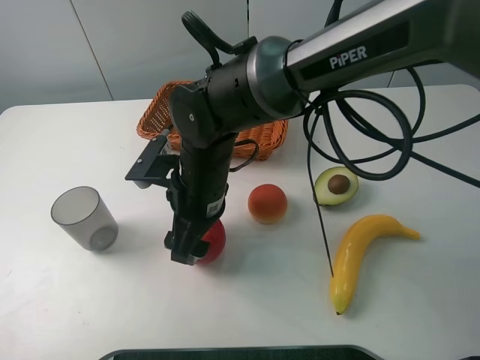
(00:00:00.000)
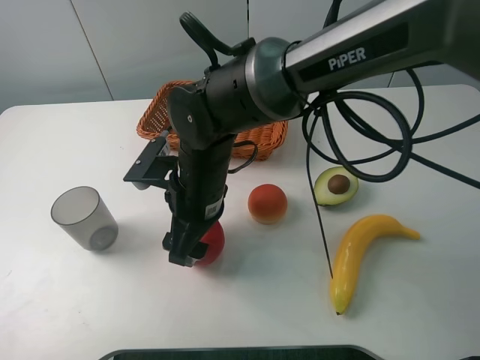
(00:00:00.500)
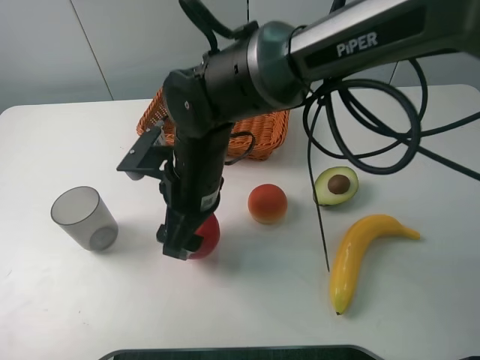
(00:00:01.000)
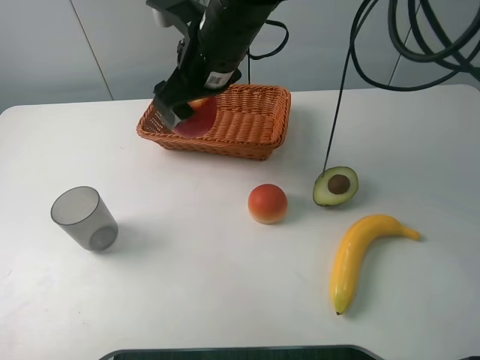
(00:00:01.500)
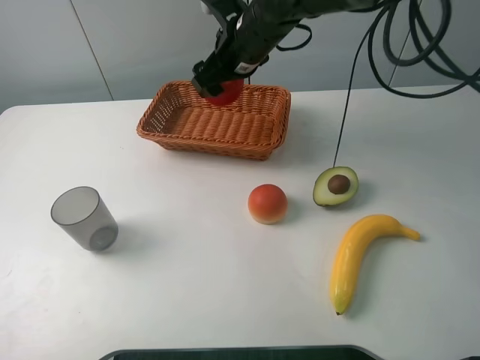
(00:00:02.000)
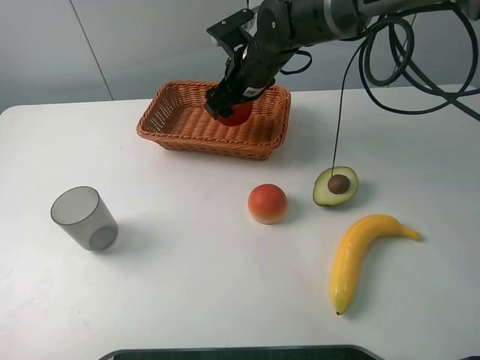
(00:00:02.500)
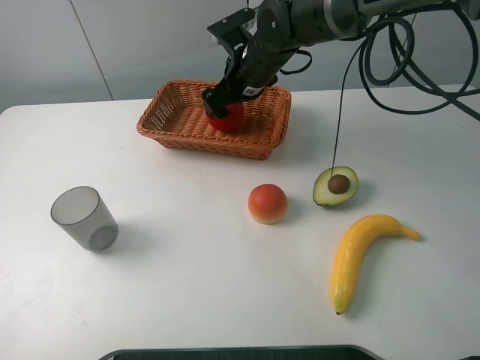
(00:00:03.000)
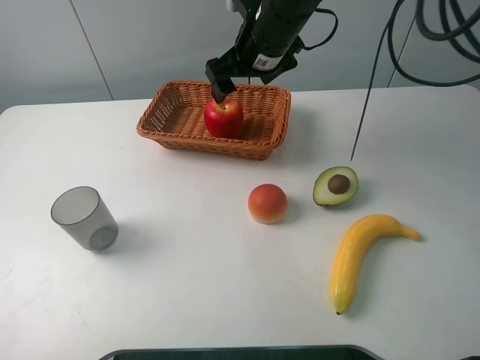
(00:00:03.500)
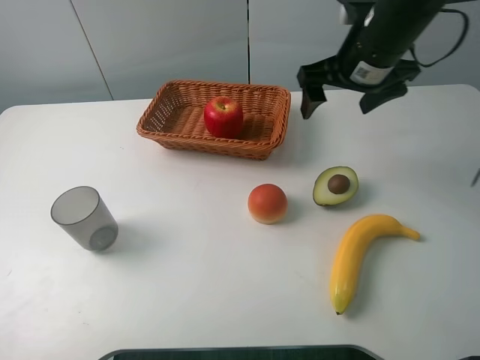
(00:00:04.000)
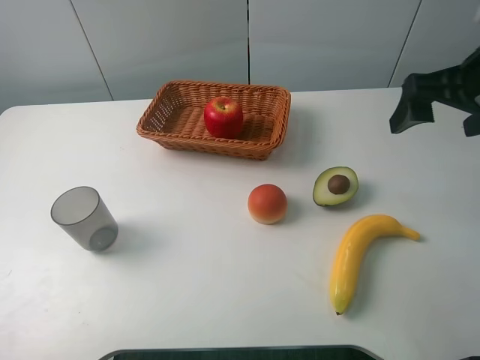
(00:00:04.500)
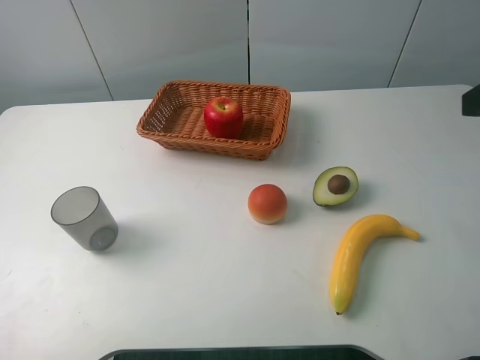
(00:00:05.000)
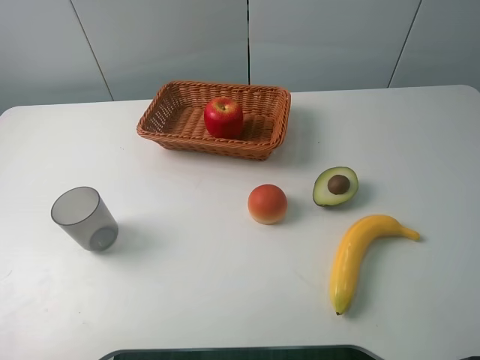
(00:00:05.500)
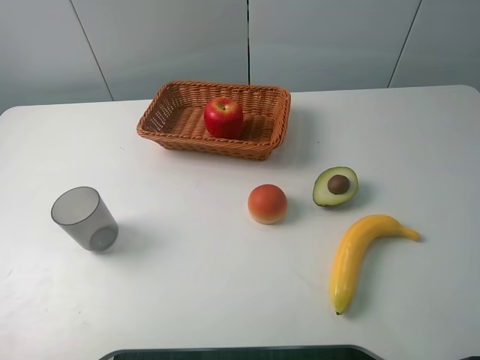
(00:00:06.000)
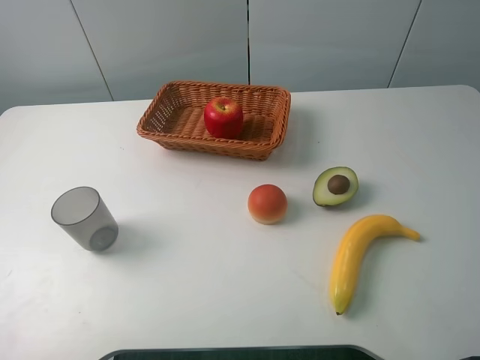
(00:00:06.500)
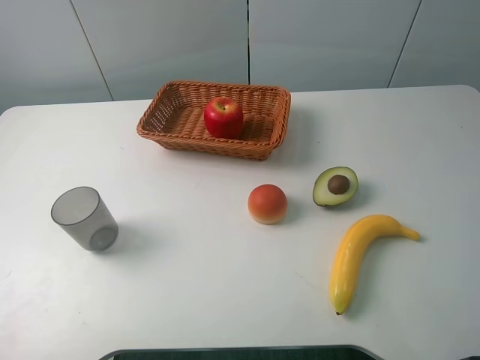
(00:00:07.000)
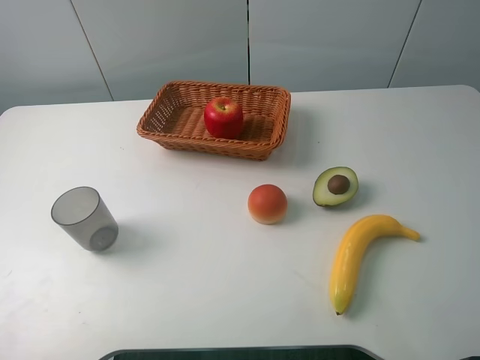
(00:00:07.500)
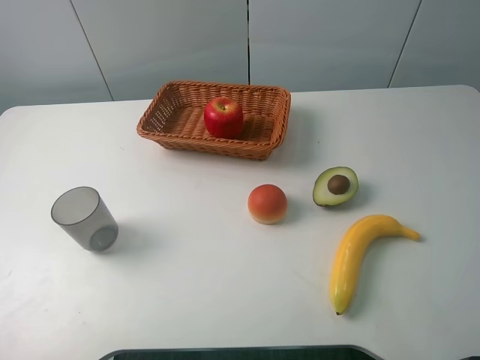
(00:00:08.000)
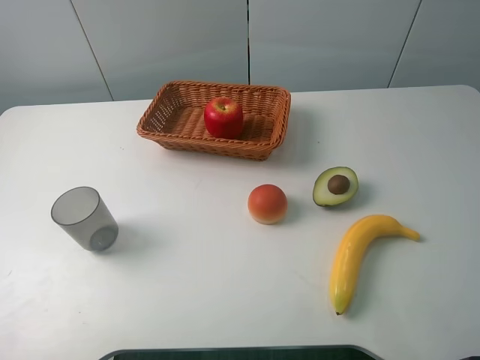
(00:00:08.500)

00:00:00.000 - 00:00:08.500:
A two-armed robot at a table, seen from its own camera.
Task of the whole recording: randomly pick up an item from the table and put it in the basket.
Step, 00:00:00.500 - 00:00:03.500: Place the apple into the basket with the right gripper.
00:00:00.000 - 00:00:02.000: The right gripper travels forward and upward by approximately 20 cm.
00:00:02.000 - 00:00:04.000: The right gripper shifts approximately 15 cm to the right and backward, and opens its fingers.
00:00:04.000 - 00:00:06.500: The right gripper shifts approximately 35 cm backward.
